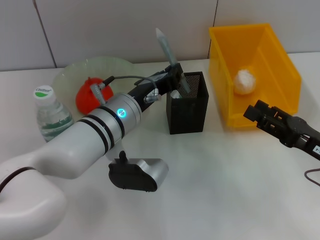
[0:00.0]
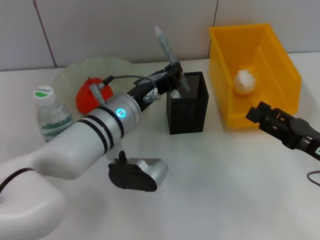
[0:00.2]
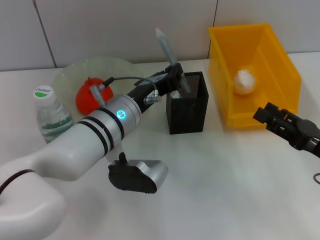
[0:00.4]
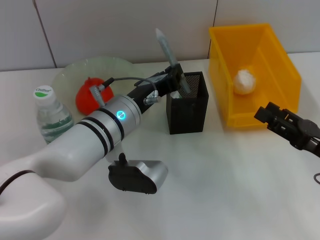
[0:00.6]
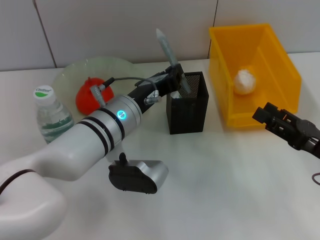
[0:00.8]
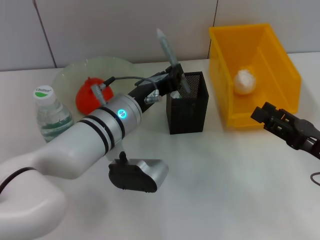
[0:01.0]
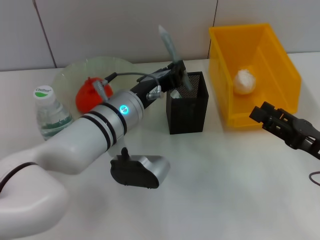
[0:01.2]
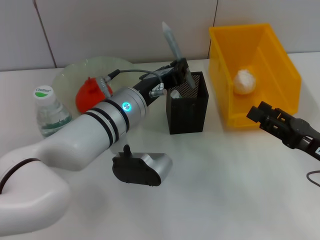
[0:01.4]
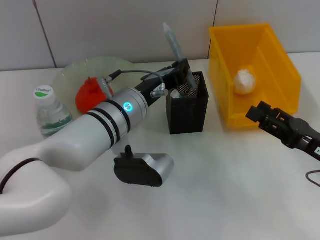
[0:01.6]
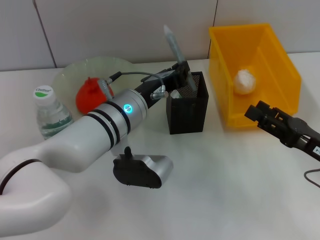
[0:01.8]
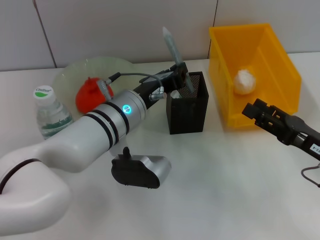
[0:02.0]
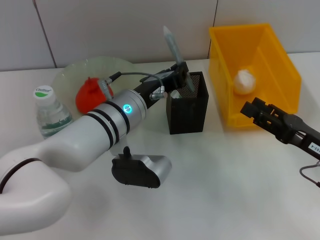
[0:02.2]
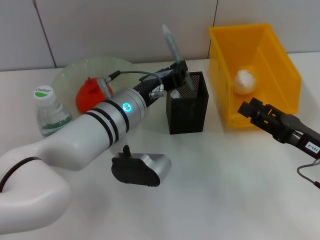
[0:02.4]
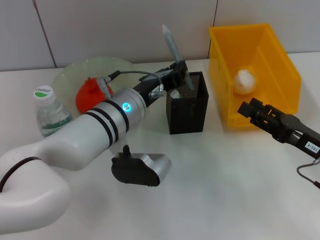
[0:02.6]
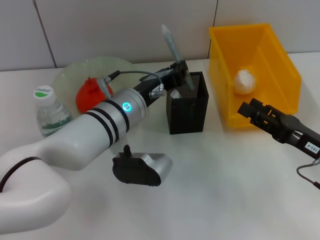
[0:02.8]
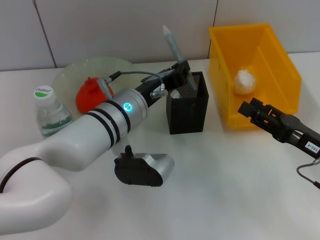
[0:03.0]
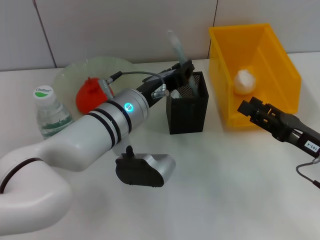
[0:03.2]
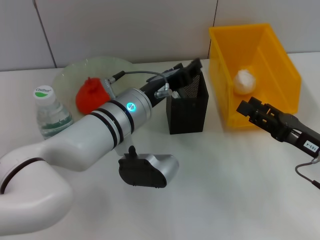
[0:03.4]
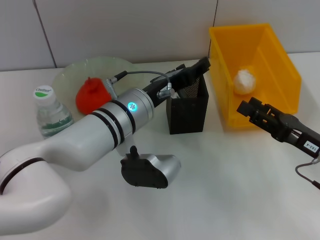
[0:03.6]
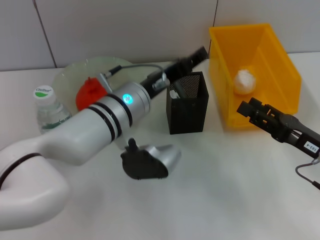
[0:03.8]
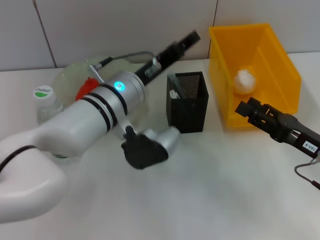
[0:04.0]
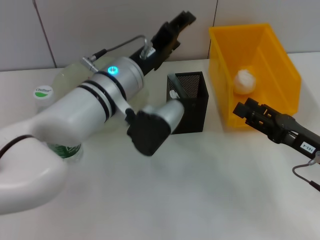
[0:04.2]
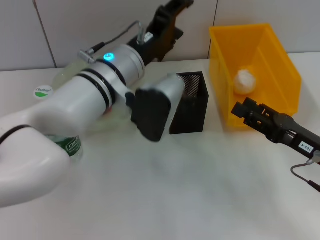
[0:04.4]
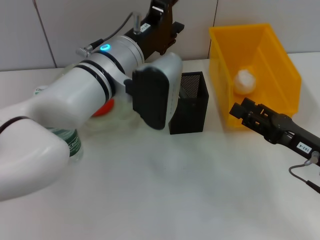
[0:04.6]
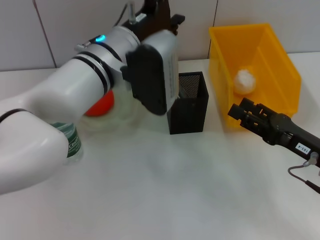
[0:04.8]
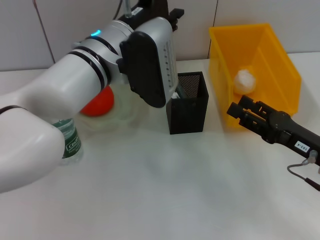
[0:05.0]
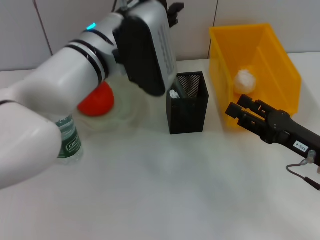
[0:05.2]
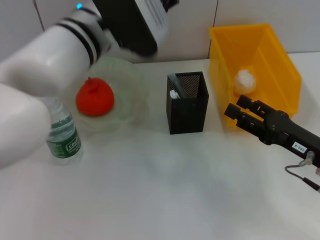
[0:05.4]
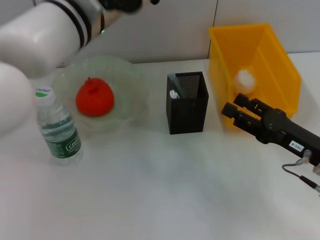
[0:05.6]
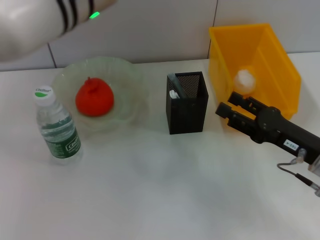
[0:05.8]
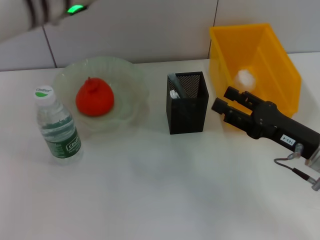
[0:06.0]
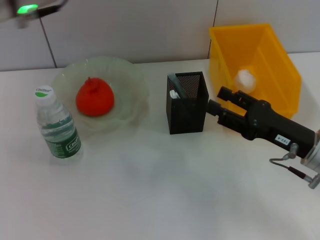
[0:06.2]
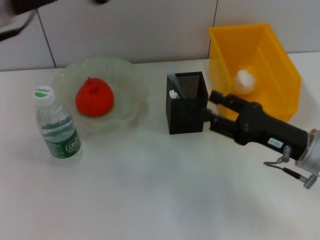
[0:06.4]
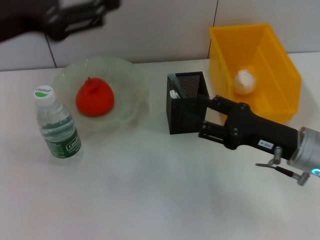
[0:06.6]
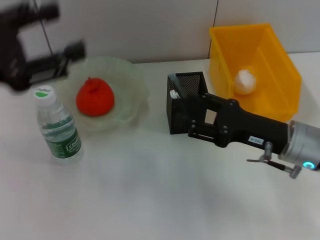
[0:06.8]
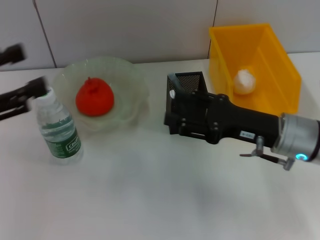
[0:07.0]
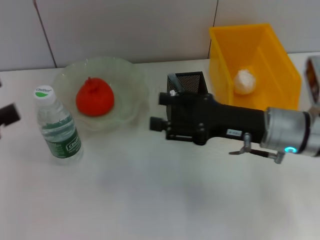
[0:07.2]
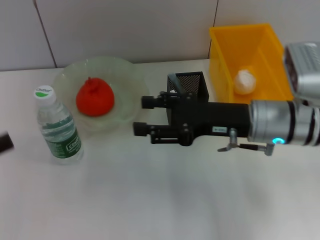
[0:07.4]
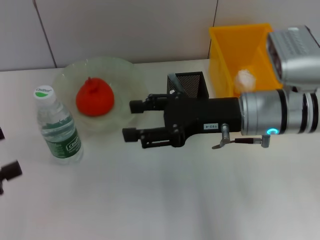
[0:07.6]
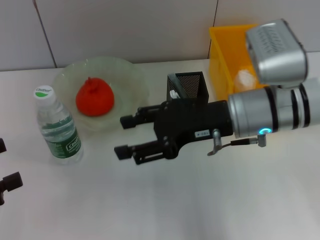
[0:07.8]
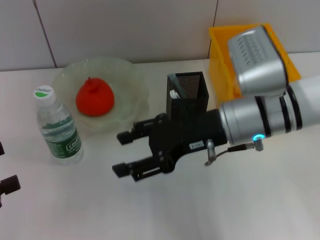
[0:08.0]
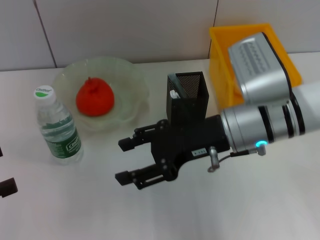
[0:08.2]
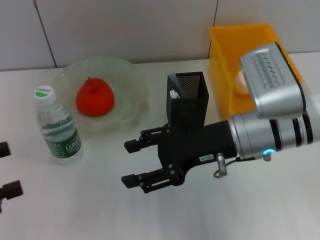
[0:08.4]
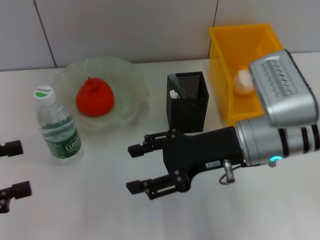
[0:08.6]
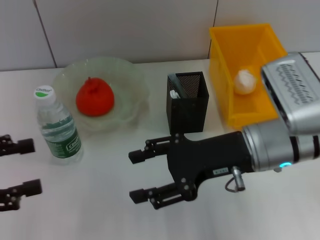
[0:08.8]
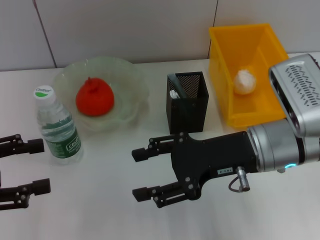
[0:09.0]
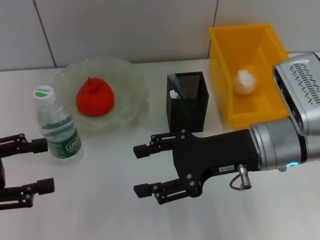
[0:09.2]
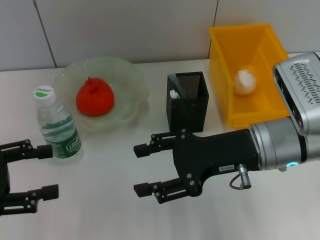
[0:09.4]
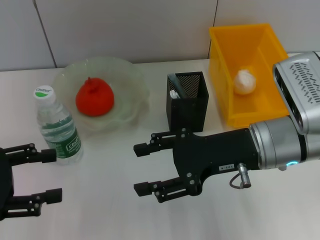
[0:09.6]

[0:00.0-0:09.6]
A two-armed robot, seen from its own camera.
Step, 0:00.0 to 0:04.2: Place the gray glue into the pen holder with the left hand.
0:00.0 to 0:01.6: Both grippers stay put.
0:01.6 to 0:03.2: The grippers make only small movements.
0:03.2 to 0:04.8: The left gripper travels upward by some 5 cm, and opens up.
0:04.8 to 0:06.4: The left gripper is displaced to the left, upward and backward by approximately 20 cm.
0:06.4 to 0:08.0: The right gripper is displaced to the left and upward by some 15 cm, while the left gripper is displaced to the left, downward and backward by about 25 cm.
0:08.0 to 0:09.6: The left gripper moves forward, roughly 5 cm.

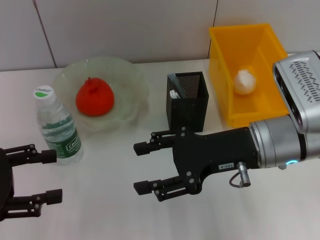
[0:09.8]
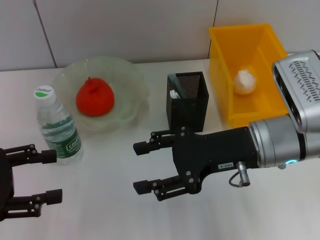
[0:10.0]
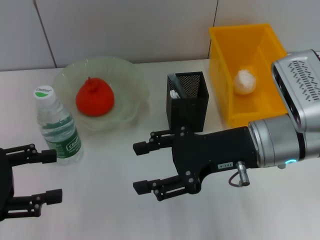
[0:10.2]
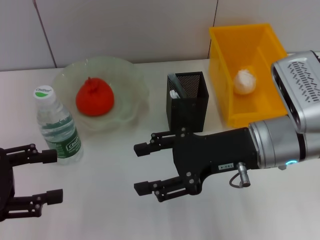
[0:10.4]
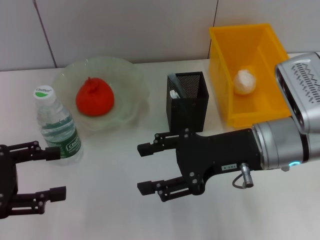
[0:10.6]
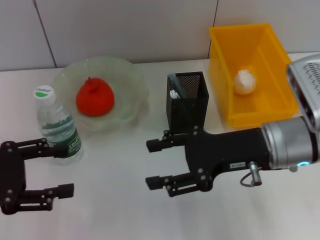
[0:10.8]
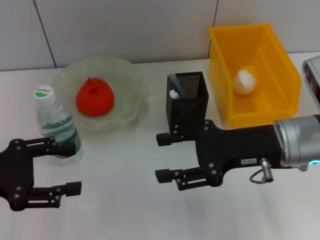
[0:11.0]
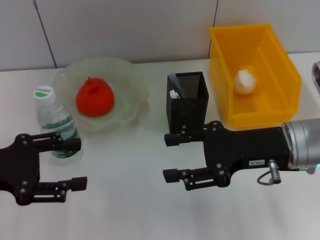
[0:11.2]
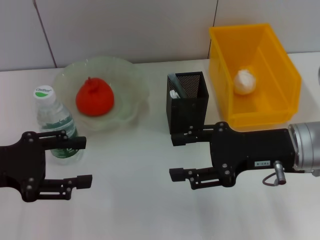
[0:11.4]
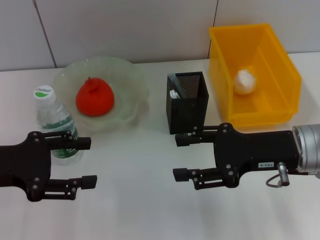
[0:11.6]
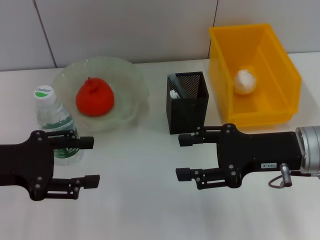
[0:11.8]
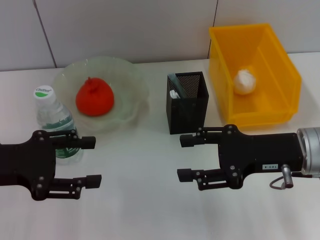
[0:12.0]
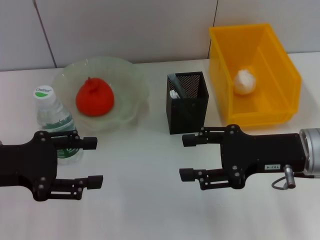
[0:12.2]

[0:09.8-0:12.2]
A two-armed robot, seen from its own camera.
0:09.8 to 0:11.0: The grippers move only a little.
0:11.0 to 0:12.2: There are only small adjustments of the grippers.
